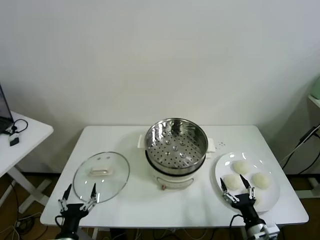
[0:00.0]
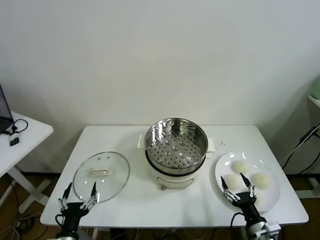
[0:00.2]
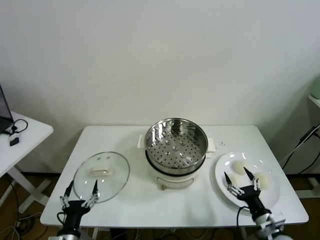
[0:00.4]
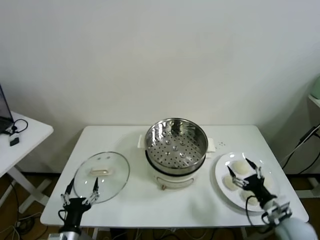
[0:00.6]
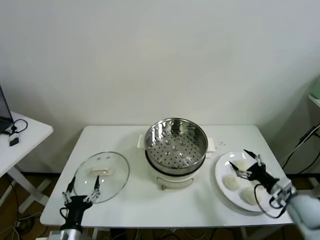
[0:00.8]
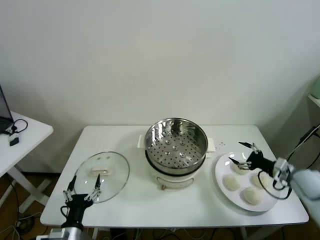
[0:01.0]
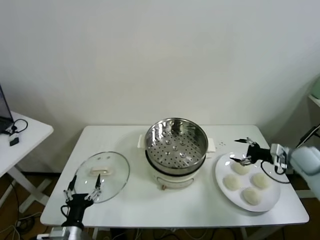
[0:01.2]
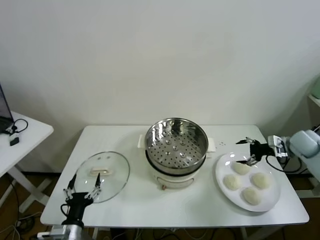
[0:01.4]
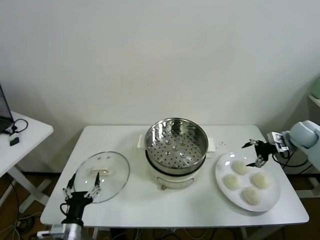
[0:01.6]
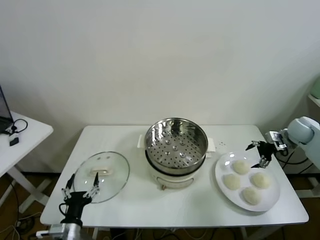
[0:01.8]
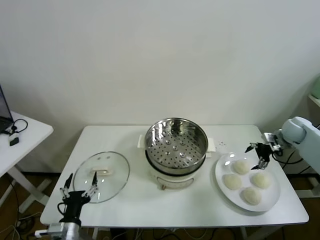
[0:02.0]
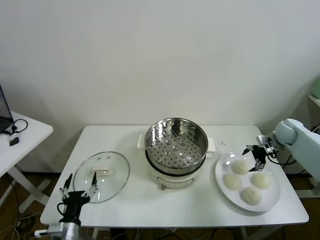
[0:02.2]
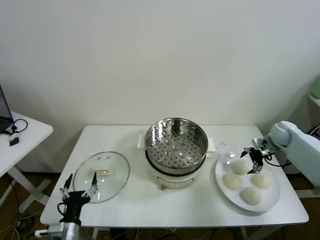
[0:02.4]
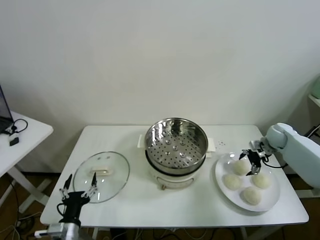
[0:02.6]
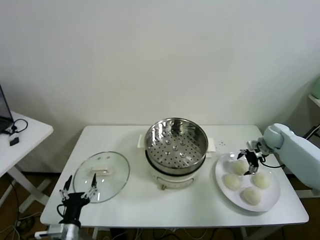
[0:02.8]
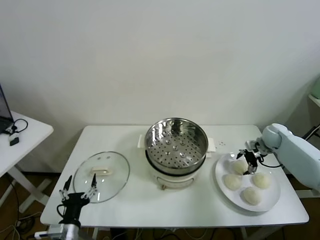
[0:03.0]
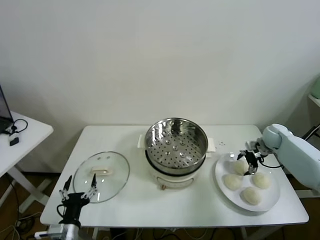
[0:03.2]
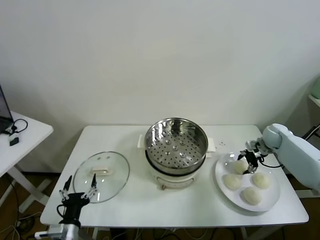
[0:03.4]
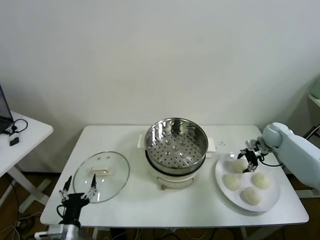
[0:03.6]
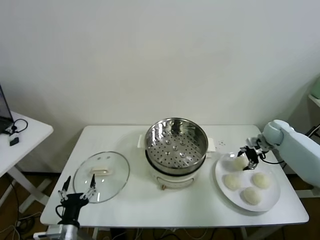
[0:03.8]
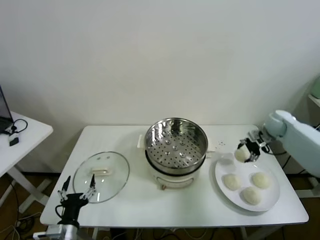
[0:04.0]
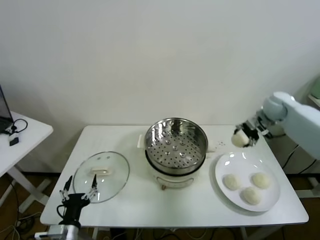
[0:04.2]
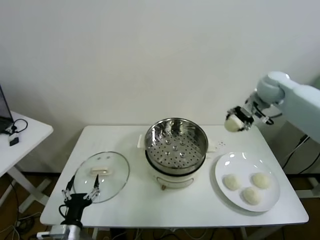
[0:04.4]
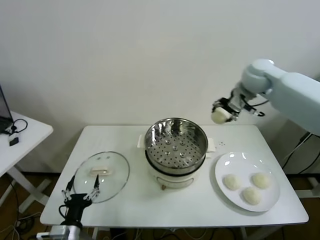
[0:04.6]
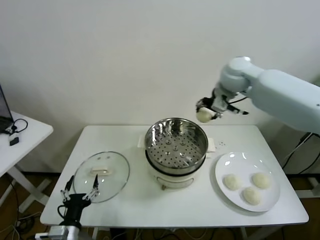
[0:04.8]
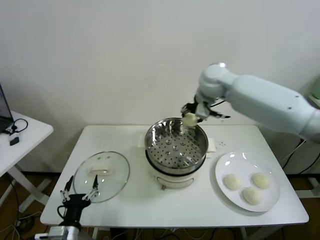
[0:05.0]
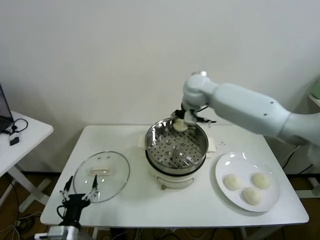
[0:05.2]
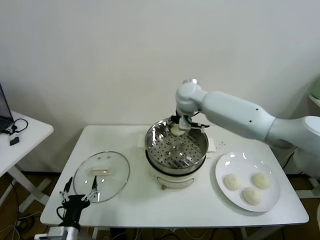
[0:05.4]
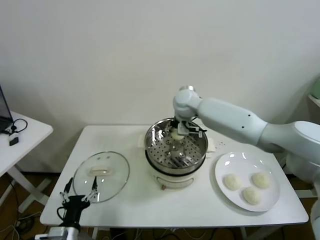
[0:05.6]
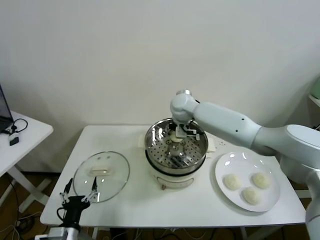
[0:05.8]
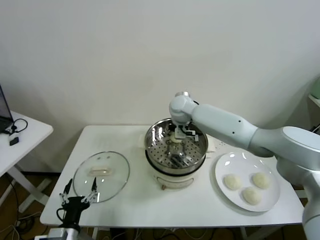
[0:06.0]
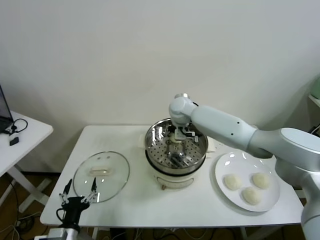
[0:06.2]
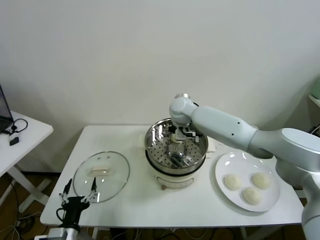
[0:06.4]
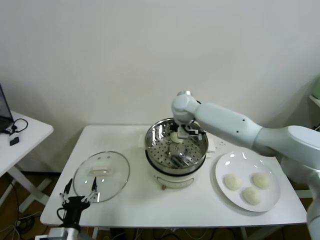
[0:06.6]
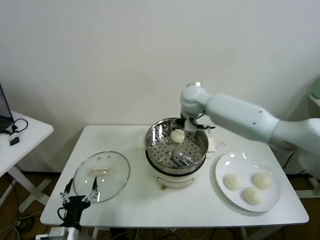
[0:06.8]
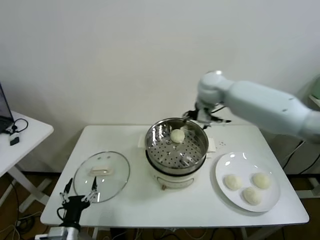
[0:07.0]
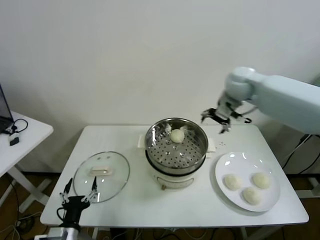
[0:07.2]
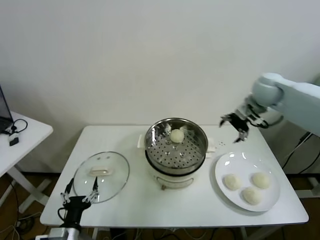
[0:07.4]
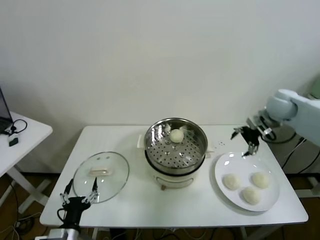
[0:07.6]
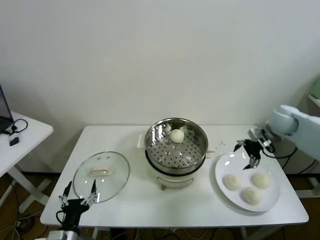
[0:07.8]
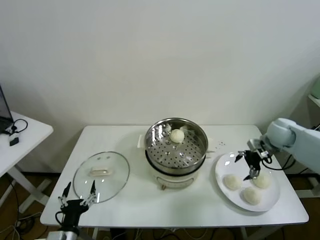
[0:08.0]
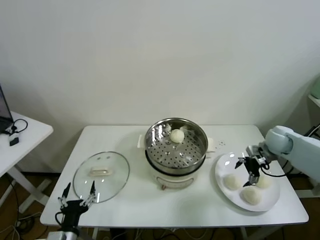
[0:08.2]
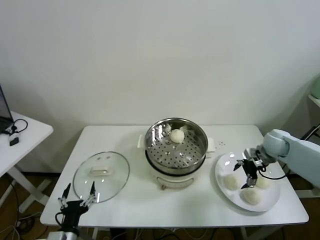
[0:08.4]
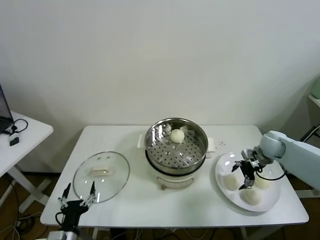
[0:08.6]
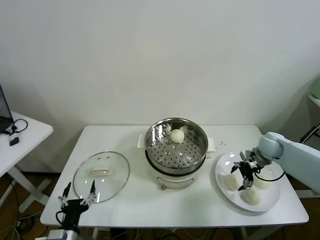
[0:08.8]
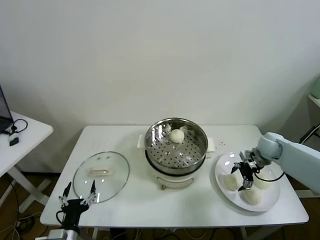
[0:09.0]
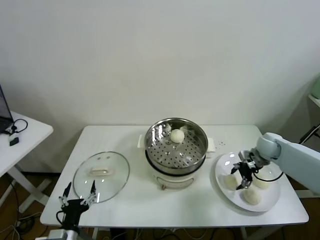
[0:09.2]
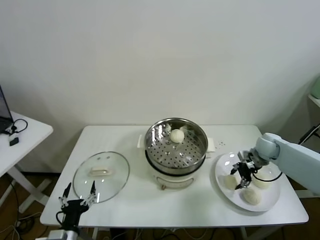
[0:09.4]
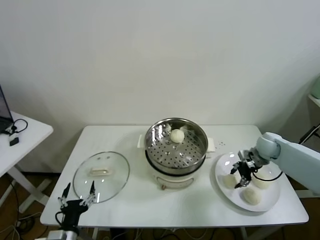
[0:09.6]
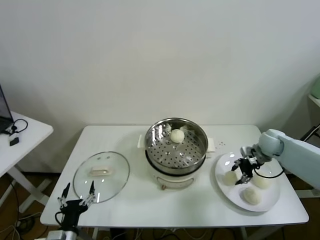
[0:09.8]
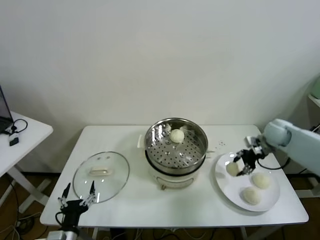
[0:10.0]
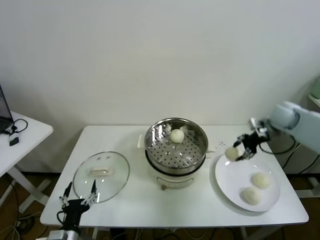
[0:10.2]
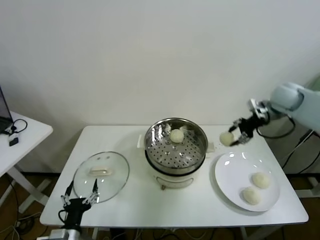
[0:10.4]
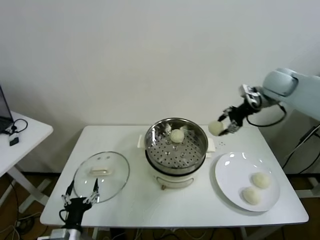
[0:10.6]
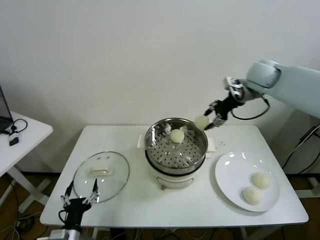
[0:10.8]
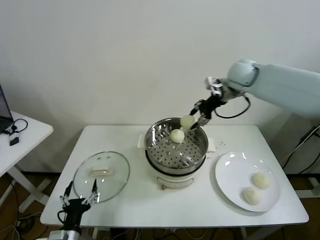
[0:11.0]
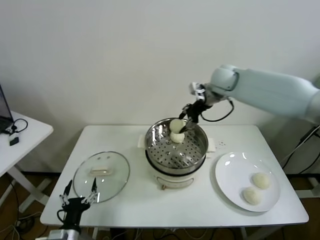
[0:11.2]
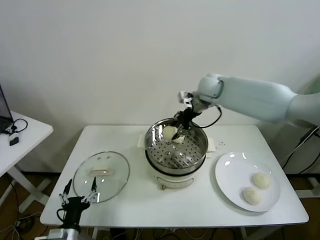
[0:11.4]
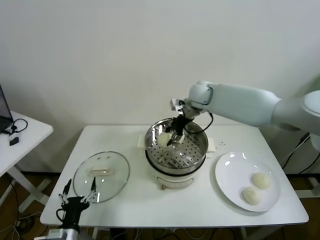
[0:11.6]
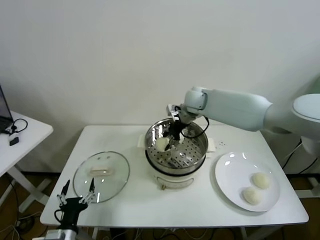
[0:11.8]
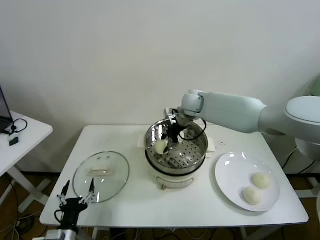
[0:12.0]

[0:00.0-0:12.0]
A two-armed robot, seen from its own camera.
Task of the whole recording: take steamed baozi put them in steamer.
Step, 0:00.0 to 0:03.4: Grasp the baozi in the plate with right gripper.
Step, 0:03.6 to 0:06.6: Place the baozi on the steamer with right gripper.
Step, 0:06.8 to 0:09.4: Grasp the baozi in the plate with right gripper.
0:01.6 to 0:03.0: The right gripper goes approximately 10 cm downward and to the left.
0:03.0 to 0:04.4: The right gripper shifts some 30 cm upward and to the left, and closes.
0:04.4 to 0:06.0: The right gripper is displaced to the left and downward by approximately 30 cm.
0:06.0 to 0:07.6: The right gripper moves to the right, roughly 35 cm, and opens.
0:07.6 to 0:09.0: The right gripper heads downward, covering about 15 cm.
0:09.0 to 0:10.4: The right gripper heads upward, covering approximately 20 cm, and closes its fingers.
0:10.4 to 0:12.0: The right gripper heads to the left, covering about 25 cm.

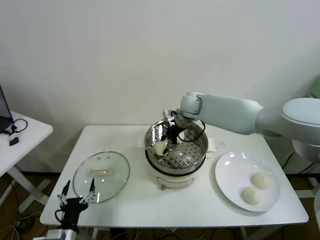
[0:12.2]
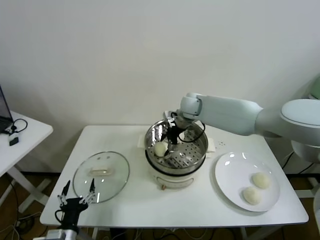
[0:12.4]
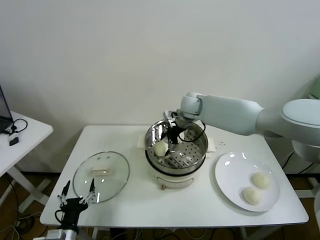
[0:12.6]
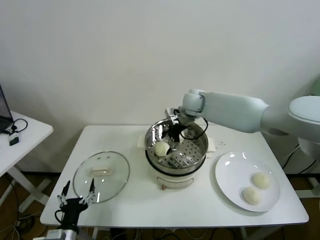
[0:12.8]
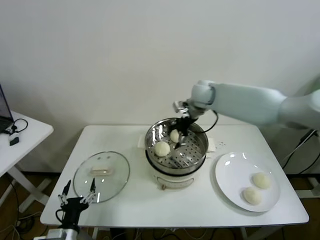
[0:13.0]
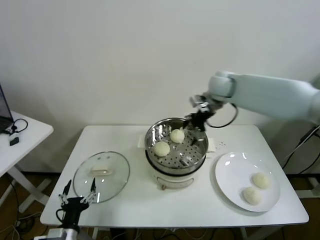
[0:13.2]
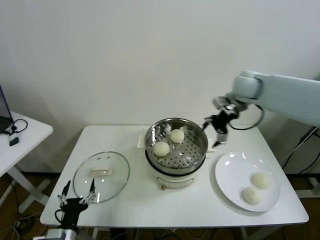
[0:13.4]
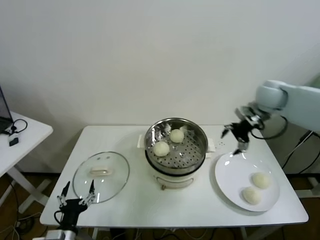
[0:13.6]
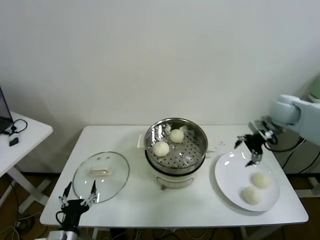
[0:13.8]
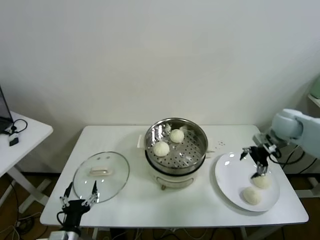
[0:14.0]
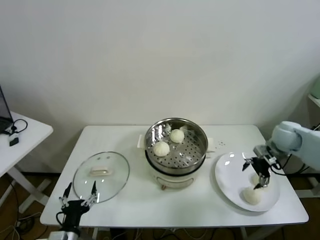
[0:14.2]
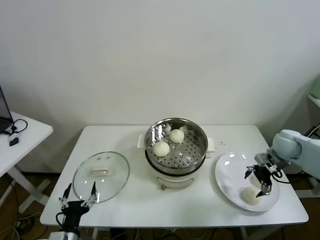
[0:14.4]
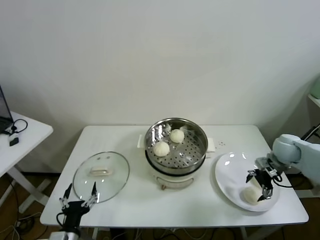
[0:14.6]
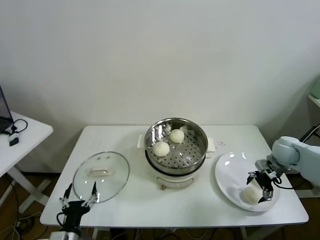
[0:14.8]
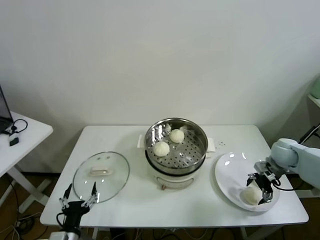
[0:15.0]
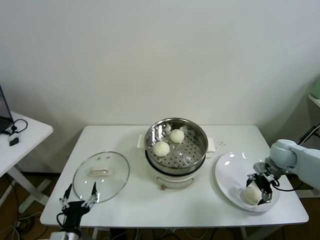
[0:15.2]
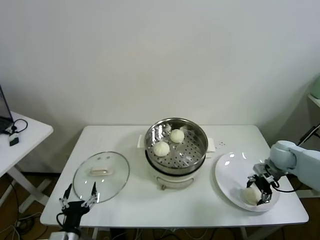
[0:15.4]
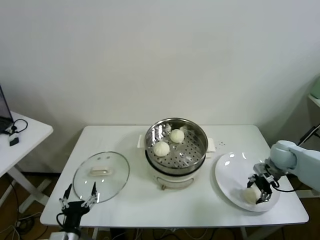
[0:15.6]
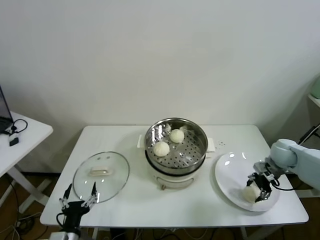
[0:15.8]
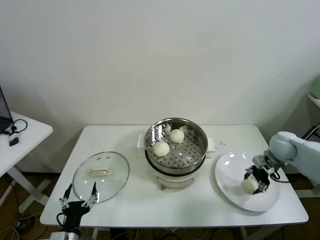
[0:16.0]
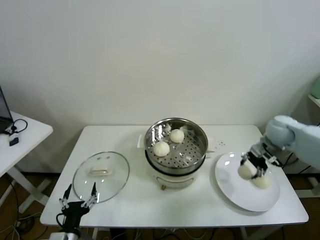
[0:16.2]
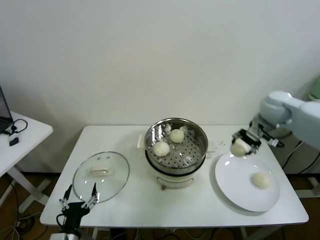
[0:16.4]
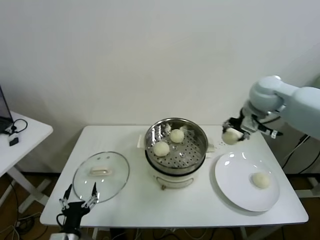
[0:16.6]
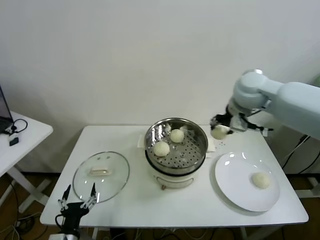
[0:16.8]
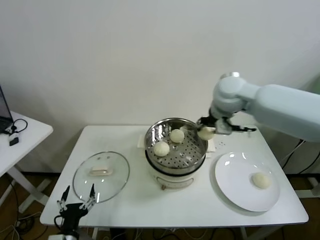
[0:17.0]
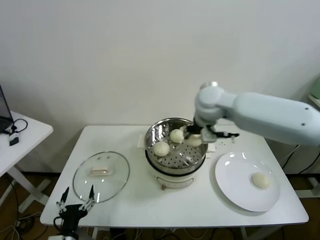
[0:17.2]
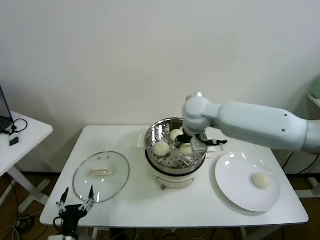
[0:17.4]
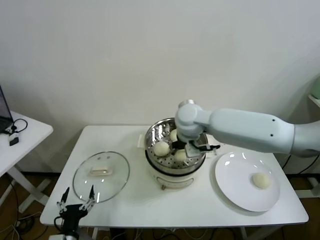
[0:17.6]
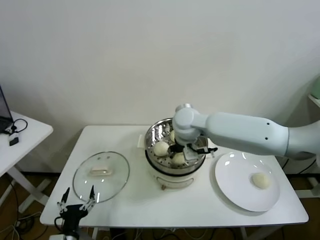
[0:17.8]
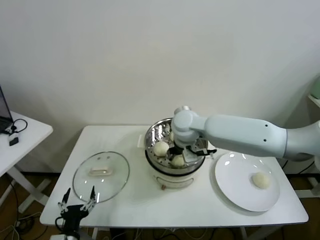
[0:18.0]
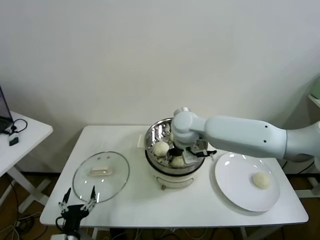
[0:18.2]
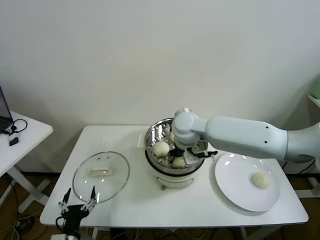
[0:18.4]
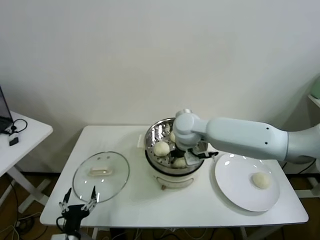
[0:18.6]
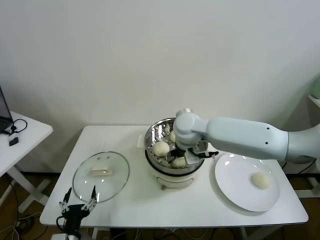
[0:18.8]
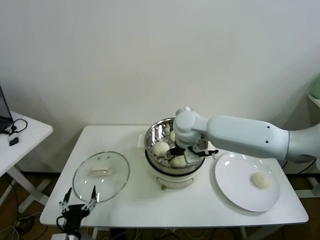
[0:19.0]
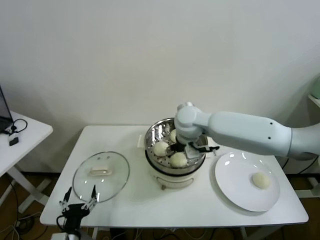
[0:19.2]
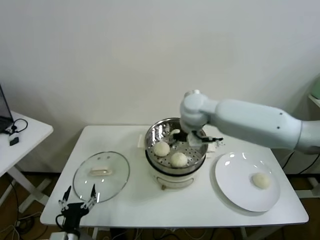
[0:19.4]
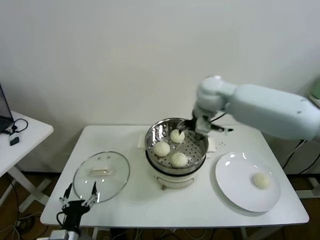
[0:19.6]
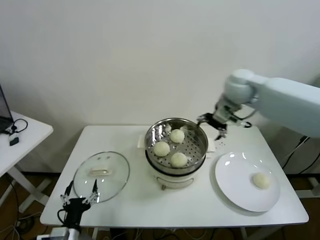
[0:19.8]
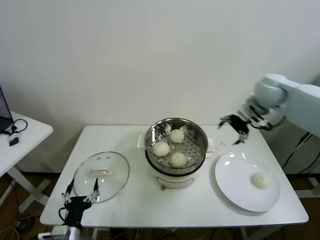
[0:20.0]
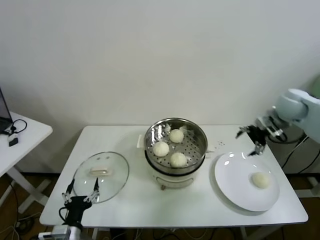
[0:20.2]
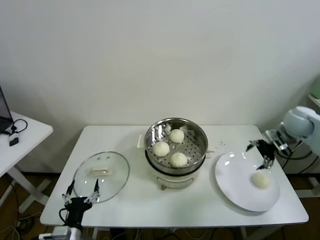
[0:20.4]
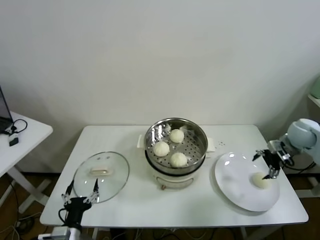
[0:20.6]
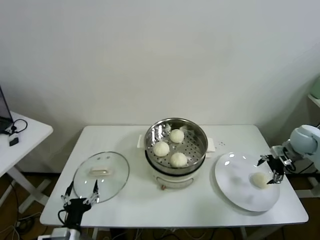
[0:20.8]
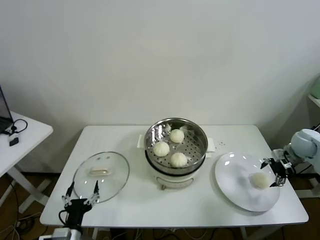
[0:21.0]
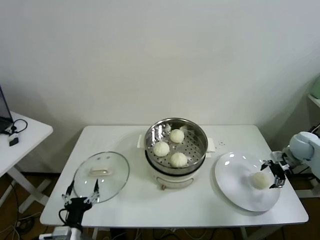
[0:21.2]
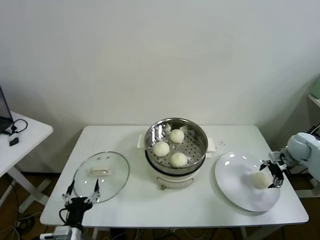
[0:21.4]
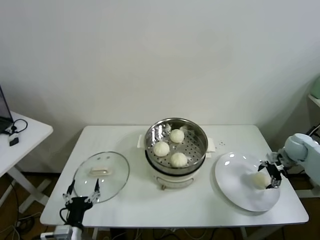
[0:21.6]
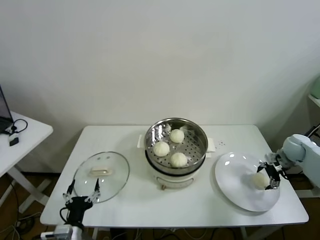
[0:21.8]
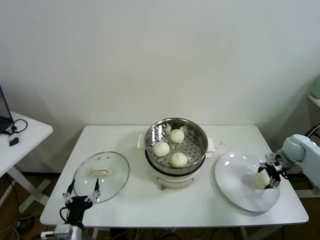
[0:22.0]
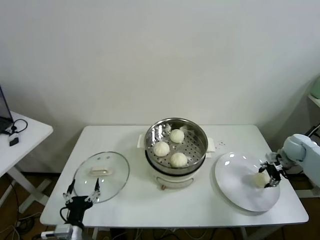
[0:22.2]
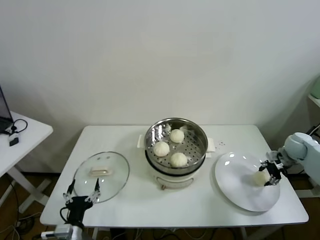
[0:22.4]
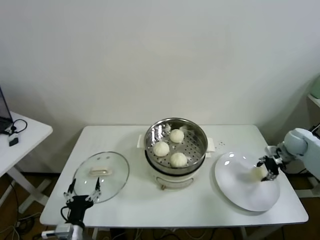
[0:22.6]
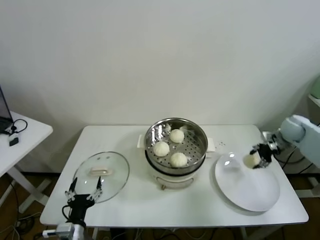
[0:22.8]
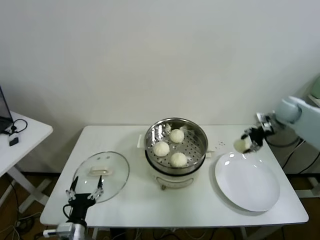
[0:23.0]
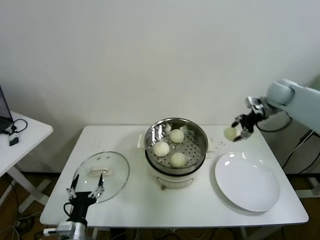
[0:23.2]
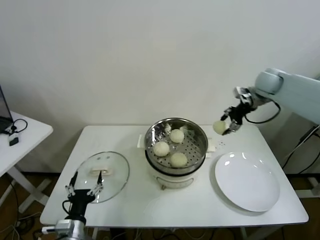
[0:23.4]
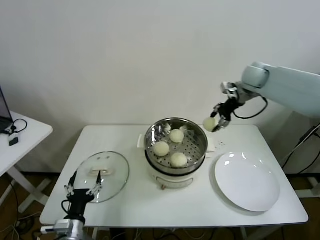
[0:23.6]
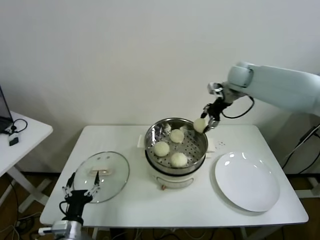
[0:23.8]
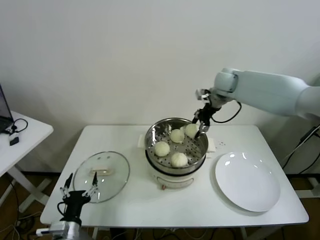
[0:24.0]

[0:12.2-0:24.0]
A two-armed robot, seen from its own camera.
Task of the whole recording: take steamed baozi put them in steamer.
Step, 0:12.8 to 0:15.4: Grasp the baozi in the plate with right gripper.
Step, 0:15.6 to 0:19.0: Place the baozi on the steamer with right gripper.
Step, 0:19.2 to 0:22.2: Grasp the baozi in the plate with right gripper.
0:12.2 to 0:13.6: The right gripper heads to the right, covering about 25 cm, and opens its fingers.
0:13.6 to 0:15.2: The right gripper heads downward and to the right, covering approximately 20 cm.
0:15.2 to 0:16.6: The right gripper goes roughly 25 cm upward and to the left, and closes.
0:16.6 to 0:18.2: The right gripper moves to the left and downward, approximately 25 cm.
0:18.2 to 0:19.6: The right gripper travels upward and to the right by roughly 10 cm, and opens its fingers.
0:19.6 to 0:21.0: The right gripper is displaced to the right and downward by roughly 40 cm.
0:21.0 to 0:22.6: The right gripper closes its fingers.
0:22.6 to 0:24.0: The right gripper heads to the left, upward and forward, covering roughly 35 cm.
